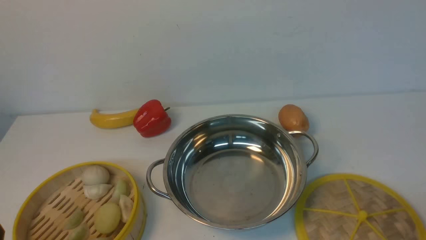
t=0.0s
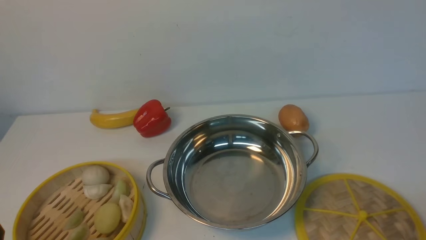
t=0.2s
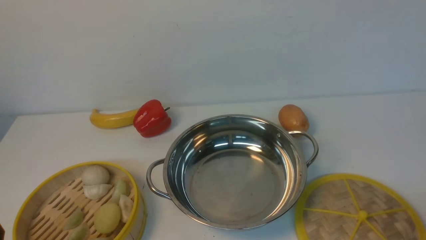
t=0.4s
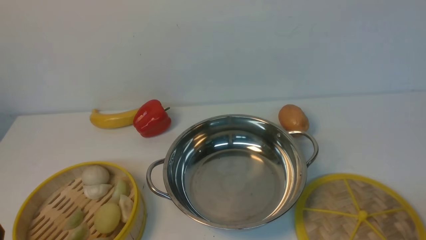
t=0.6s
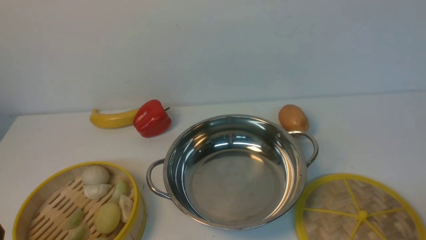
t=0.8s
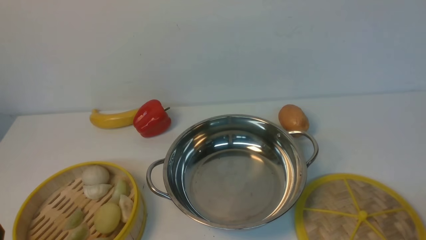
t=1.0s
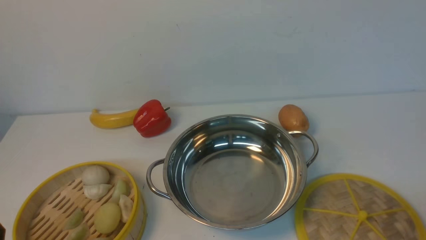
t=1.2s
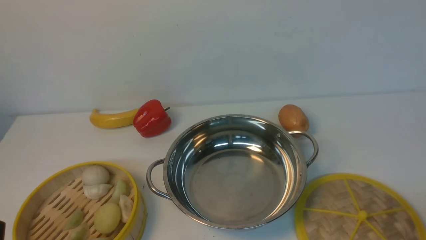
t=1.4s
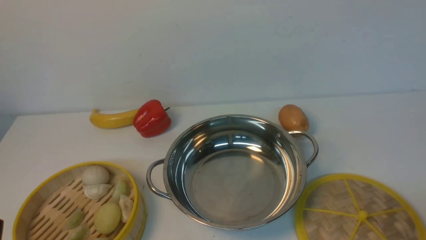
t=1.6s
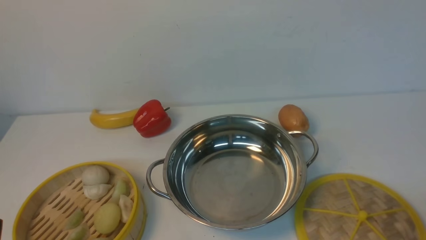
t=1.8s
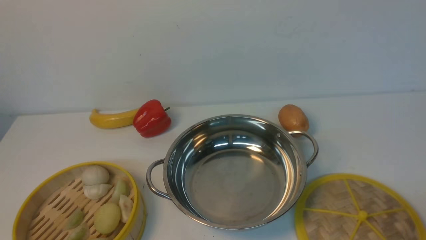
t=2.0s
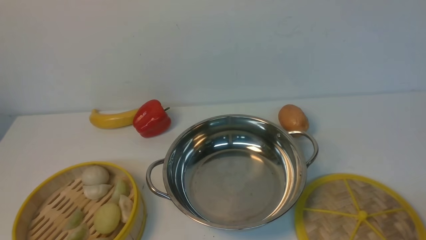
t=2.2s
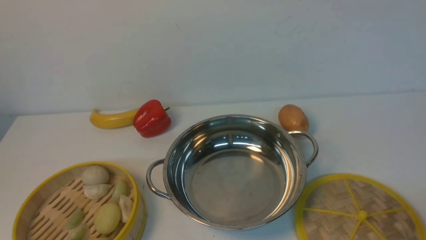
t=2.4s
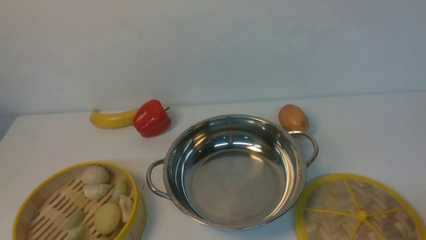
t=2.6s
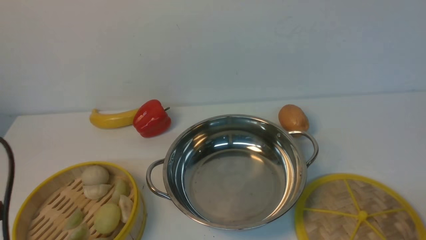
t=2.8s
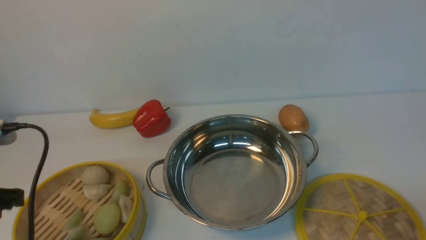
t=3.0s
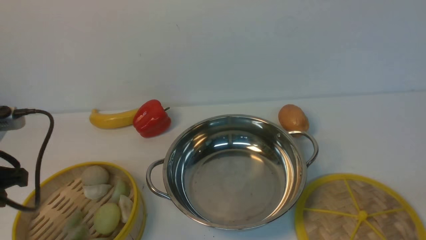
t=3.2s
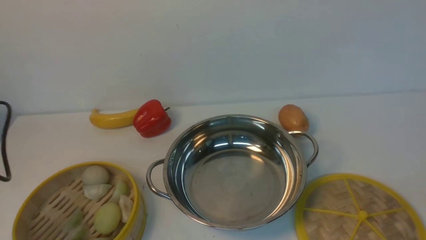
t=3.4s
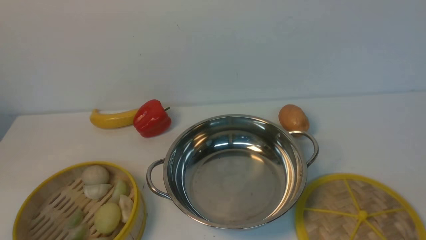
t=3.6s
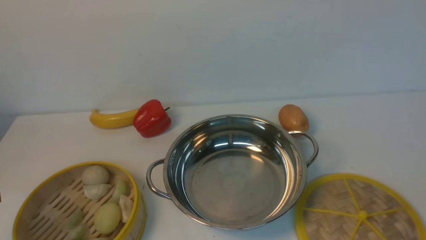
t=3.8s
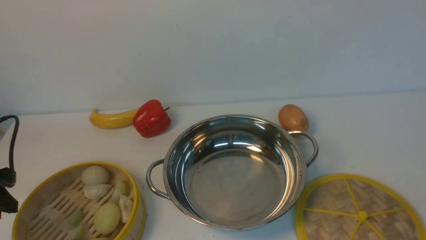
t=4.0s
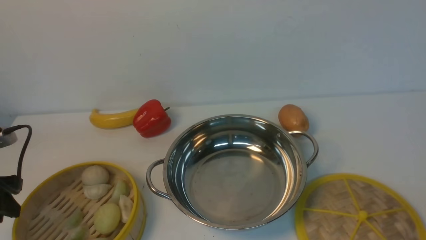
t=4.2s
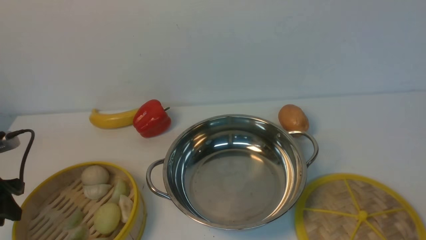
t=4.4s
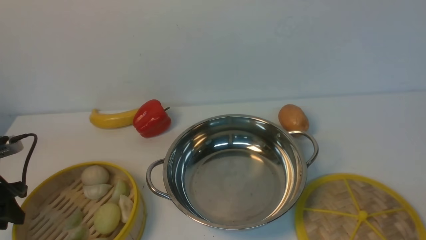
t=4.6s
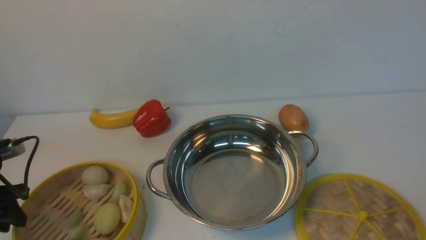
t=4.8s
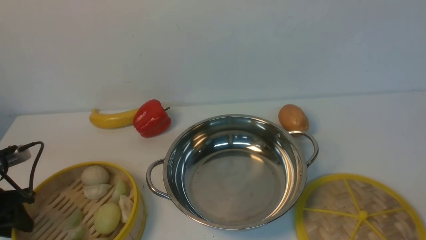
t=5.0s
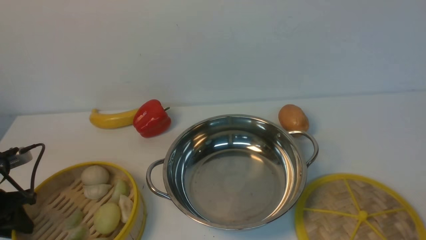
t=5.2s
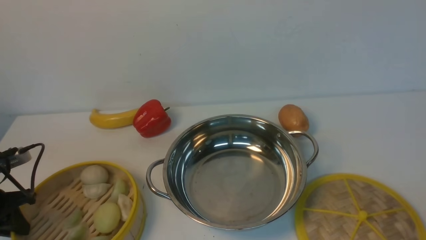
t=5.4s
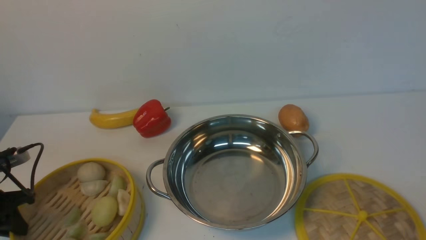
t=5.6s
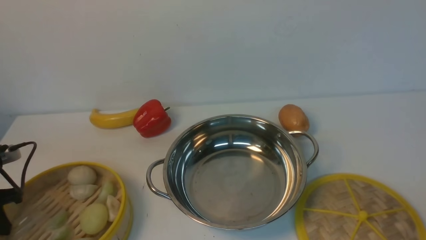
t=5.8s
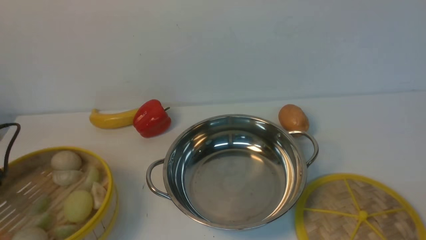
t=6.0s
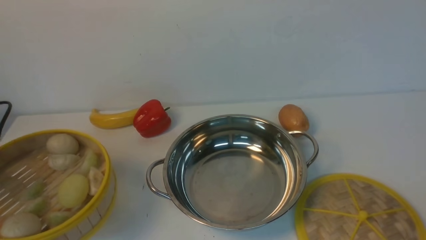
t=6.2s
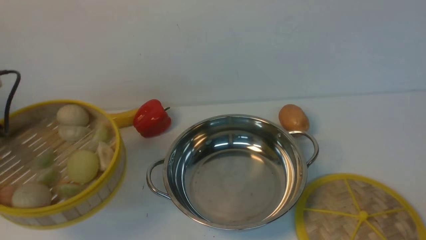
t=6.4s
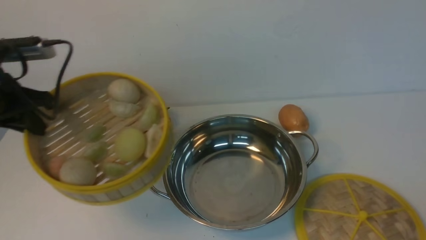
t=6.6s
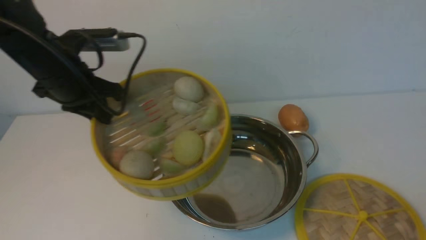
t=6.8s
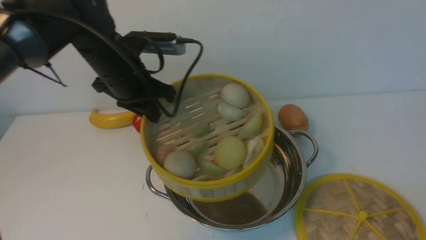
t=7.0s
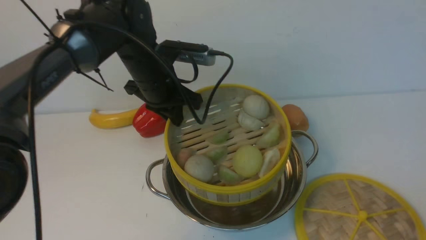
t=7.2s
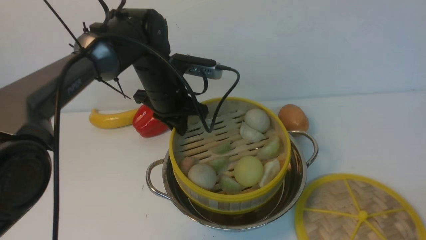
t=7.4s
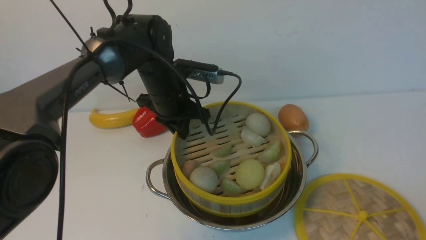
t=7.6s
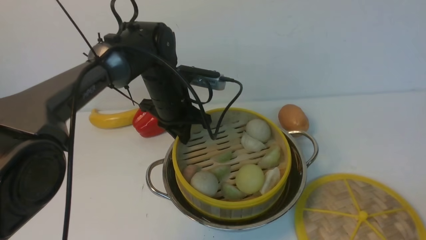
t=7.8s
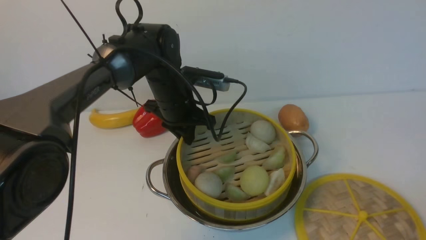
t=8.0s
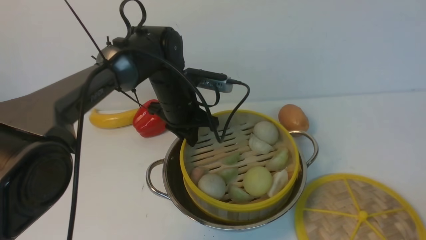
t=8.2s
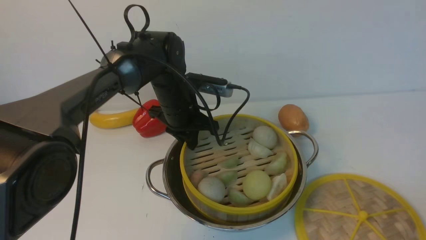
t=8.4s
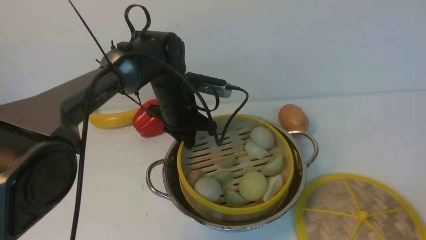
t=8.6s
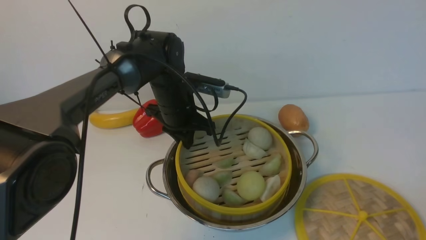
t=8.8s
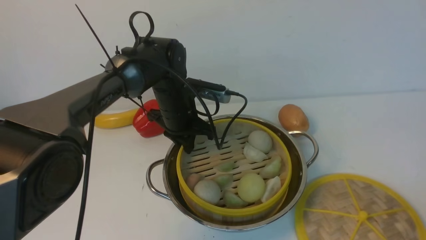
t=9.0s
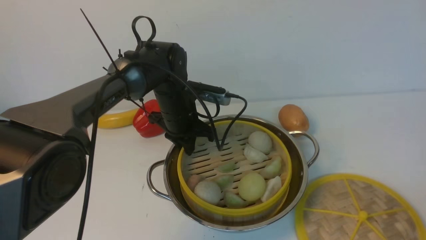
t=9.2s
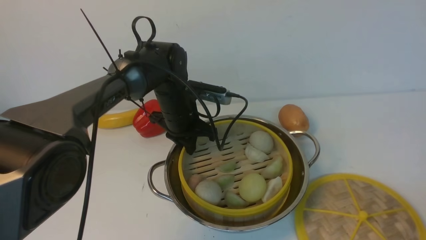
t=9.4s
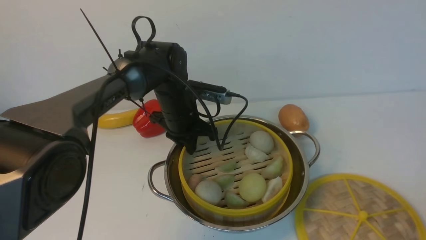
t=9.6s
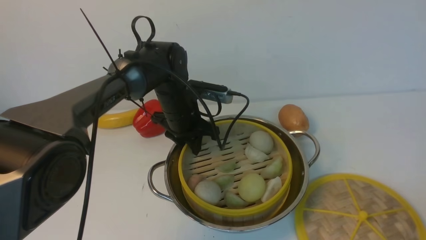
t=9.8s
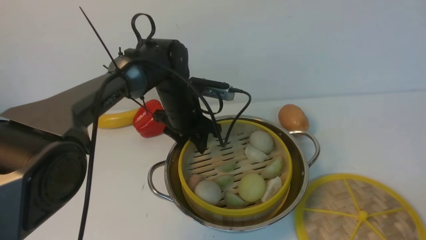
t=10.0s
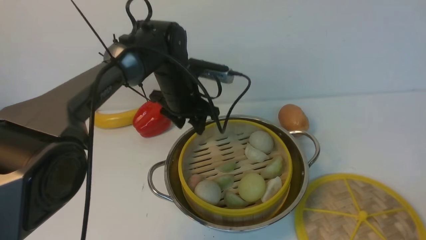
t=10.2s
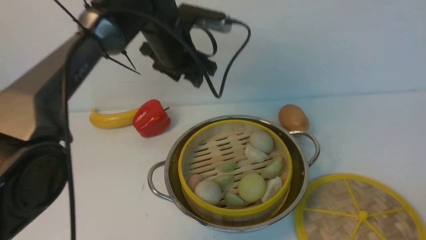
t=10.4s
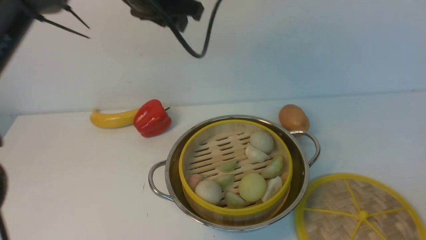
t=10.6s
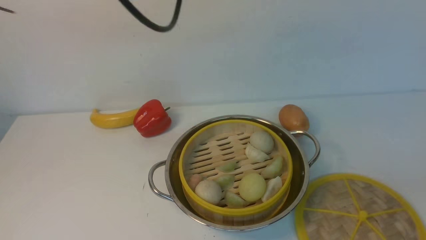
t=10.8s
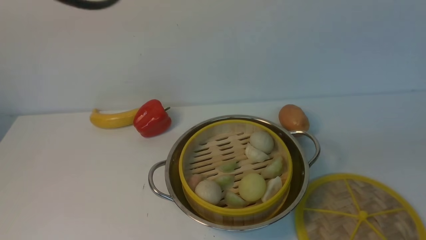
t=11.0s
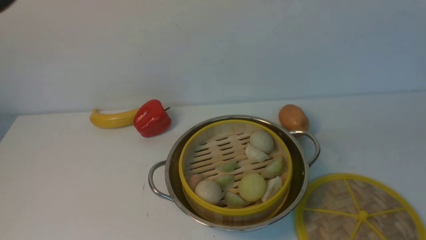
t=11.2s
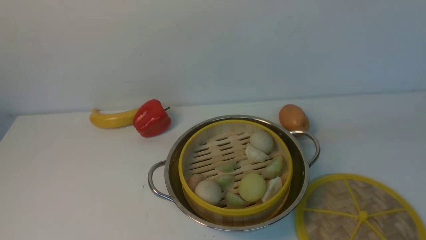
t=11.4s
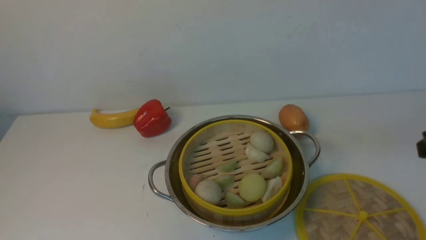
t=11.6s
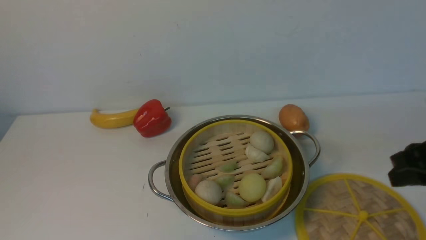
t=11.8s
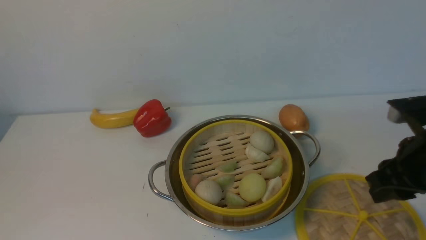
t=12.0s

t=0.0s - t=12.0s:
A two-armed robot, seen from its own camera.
Task of the whole recording: place the steamer in the pot on the white table, and put the lid on the steamer.
Step, t=0.0s - t=5.8s: use the left arm to lift the steamer closest to it.
Step, t=6.2s - t=10.6s: use the left arm to put the steamer into the iron steamer pot in the middle.
t=1.6s - t=3.0s: The left gripper is displaced forward and upward by some 15 cm.
t=3.0s - t=4.4s: The left gripper goes about 15 cm downward, to the left and forward.
t=4.4s - t=6.0s: The left gripper closes.
t=6.0s - t=7.6s: The left gripper is displaced to the right and forward by some 35 cm.
t=9.0s - t=10.4s: The left gripper goes roughly 15 cm upward, and opens its fingers.
t=10.4s - t=12.0s: The right gripper heads forward, covering approximately 20 cm, while the left gripper moves backward and to the left, approximately 40 cm, and closes up.

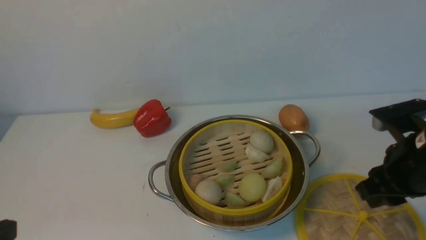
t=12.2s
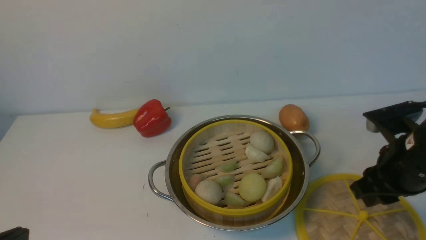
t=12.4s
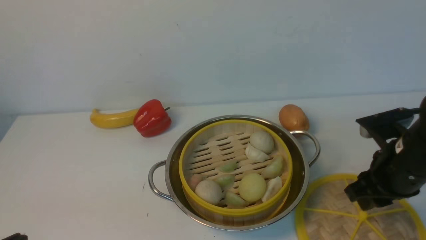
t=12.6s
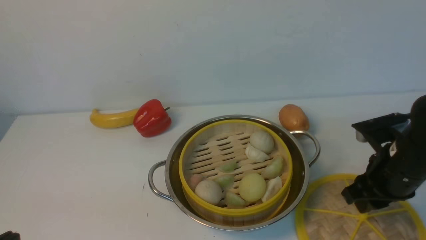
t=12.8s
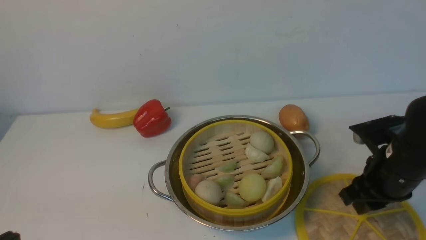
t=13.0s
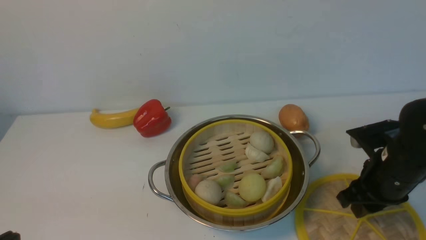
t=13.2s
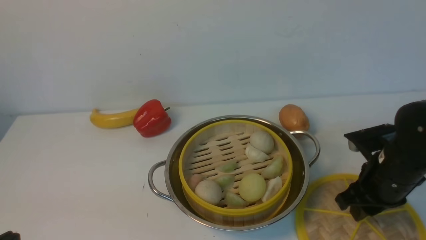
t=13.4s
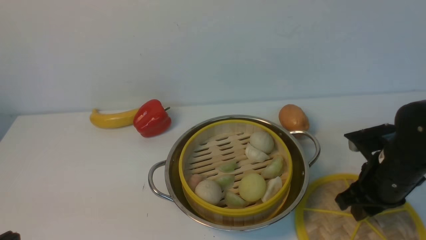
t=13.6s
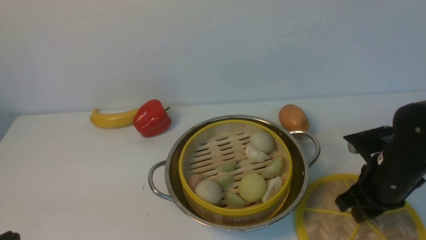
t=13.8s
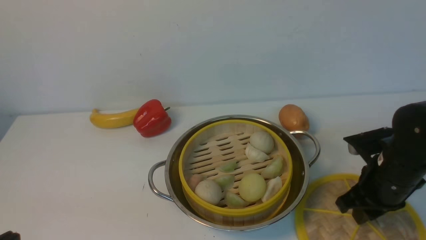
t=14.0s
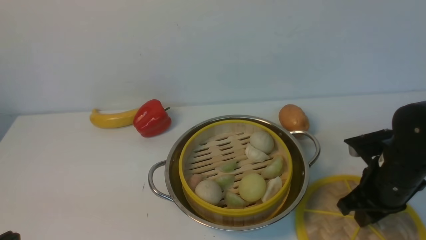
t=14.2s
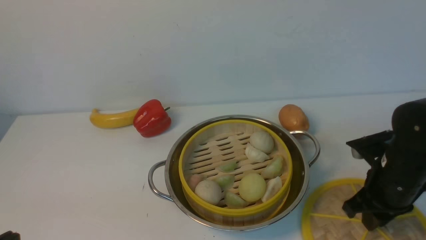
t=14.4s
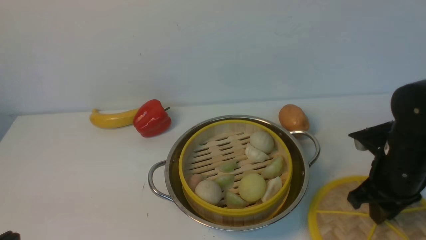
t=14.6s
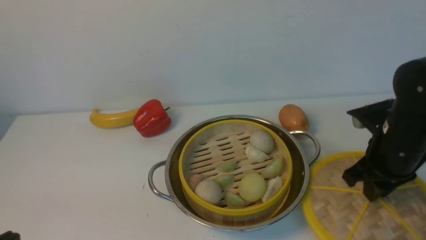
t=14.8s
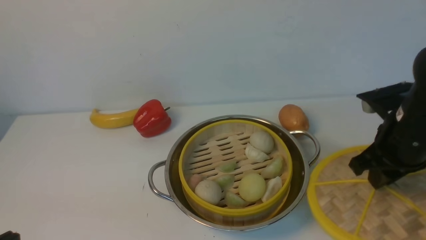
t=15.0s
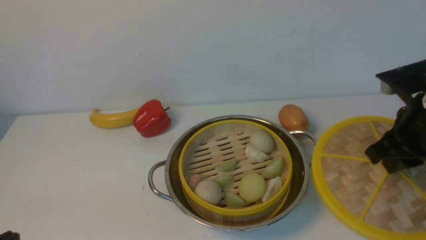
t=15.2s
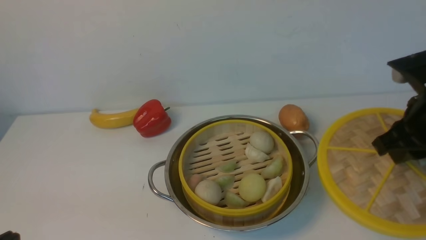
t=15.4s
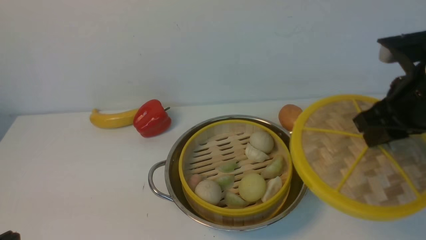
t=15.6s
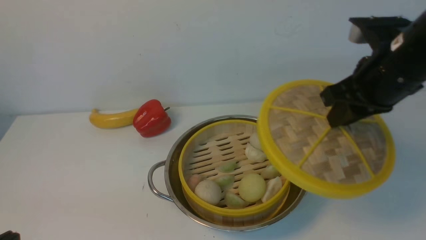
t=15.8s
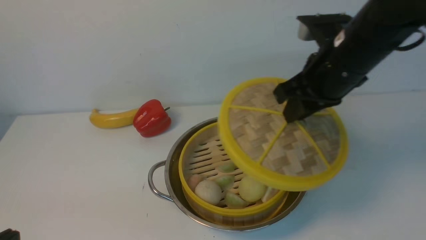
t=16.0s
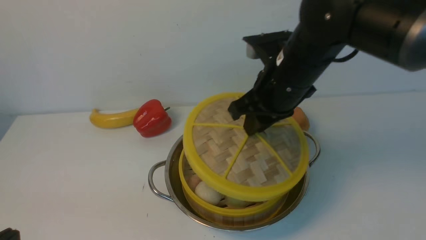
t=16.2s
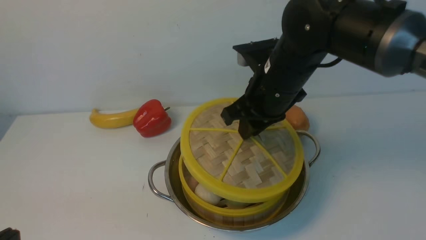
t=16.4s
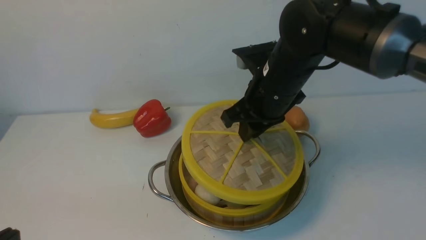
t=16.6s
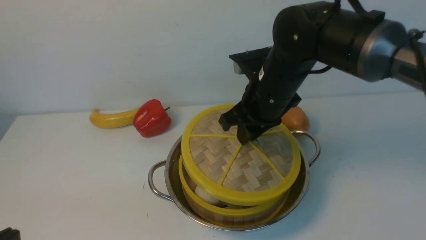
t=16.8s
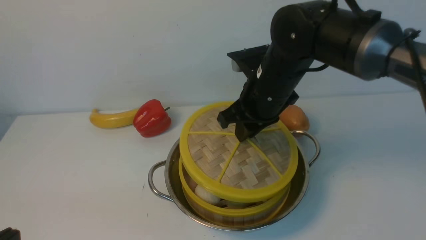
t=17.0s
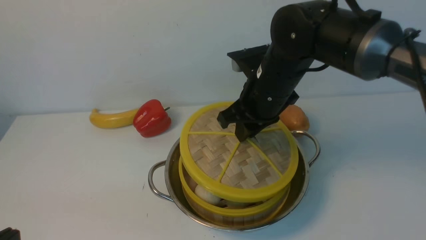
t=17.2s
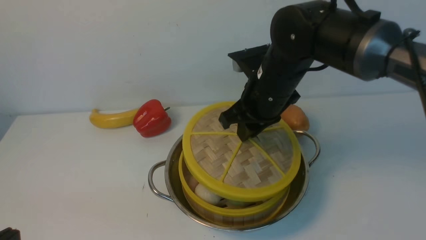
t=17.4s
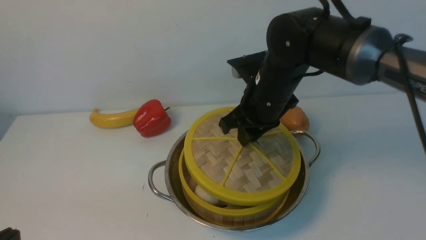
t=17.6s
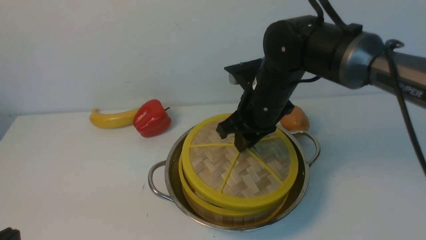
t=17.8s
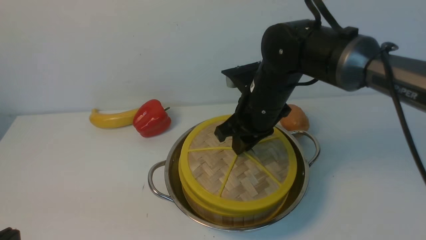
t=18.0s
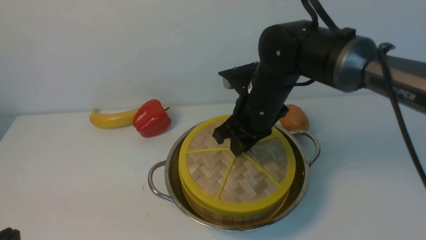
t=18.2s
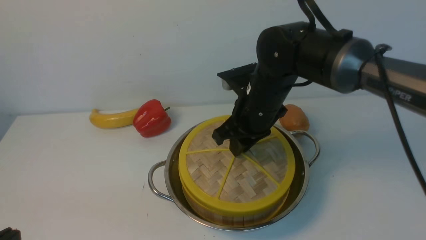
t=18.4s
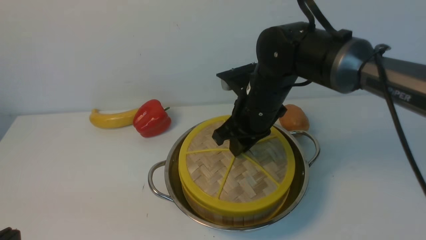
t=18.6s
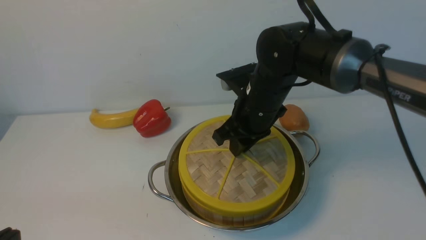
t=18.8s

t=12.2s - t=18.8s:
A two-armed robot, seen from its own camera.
Task of the whole recording: place the steamer in the pot on the white table, and put the lid on the steamer.
Step, t=12.2s - t=15.0s: use the right arm to lift the lid of the steamer.
t=12.2s - t=13.8s: The right gripper moves downward, roughly 5 cm.
t=13.8s - t=15.4s: The right gripper goes about 15 cm upward.
t=15.4s - t=17.2s: The right gripper is displaced to the left and forward by approximately 20 cm.
t=17.2s - t=18.8s: The grippers move only a little.
